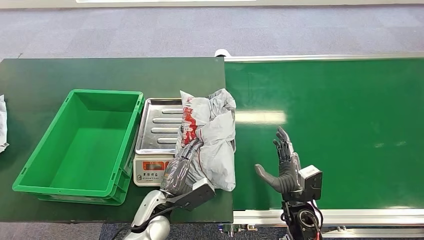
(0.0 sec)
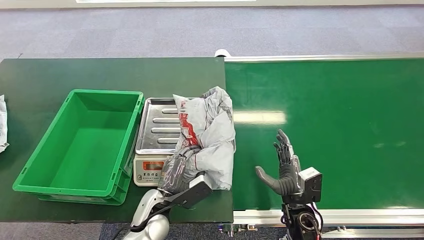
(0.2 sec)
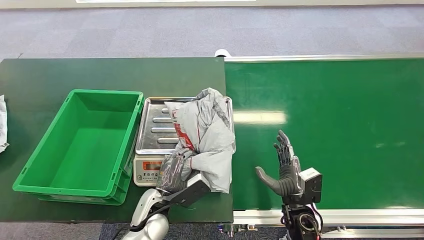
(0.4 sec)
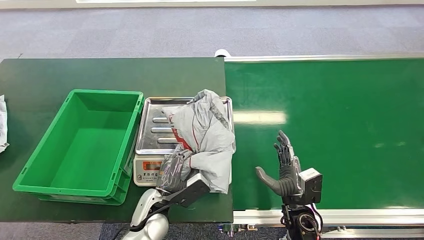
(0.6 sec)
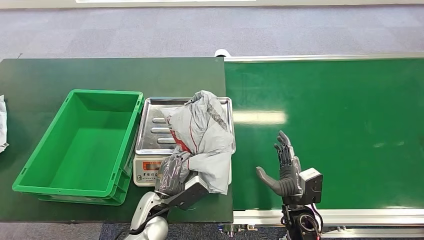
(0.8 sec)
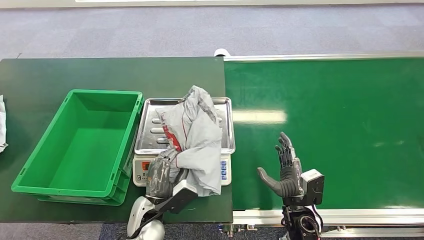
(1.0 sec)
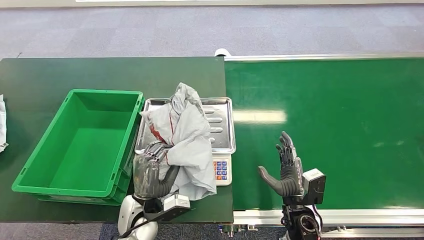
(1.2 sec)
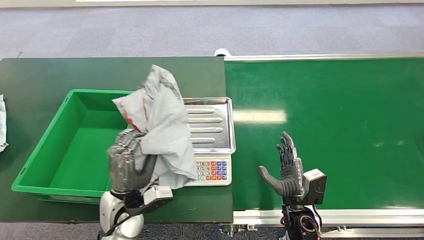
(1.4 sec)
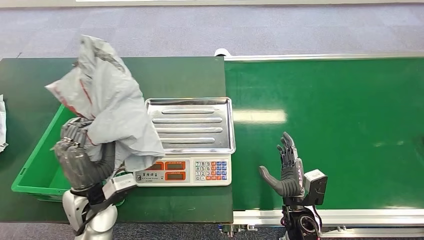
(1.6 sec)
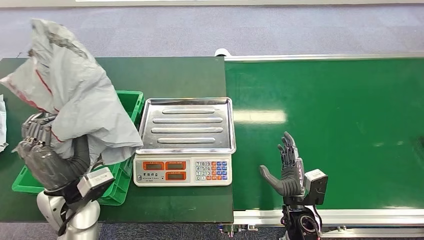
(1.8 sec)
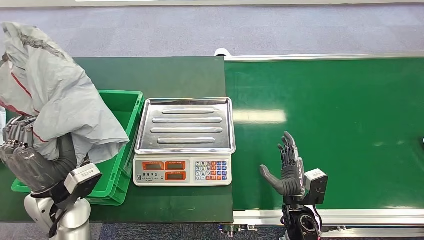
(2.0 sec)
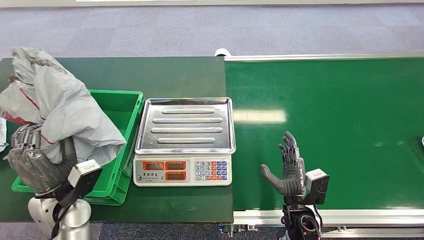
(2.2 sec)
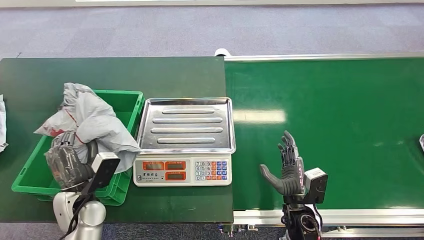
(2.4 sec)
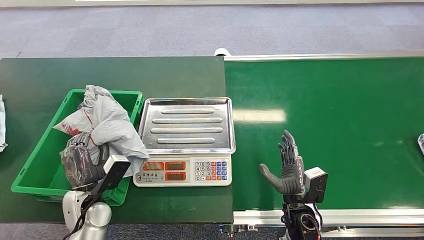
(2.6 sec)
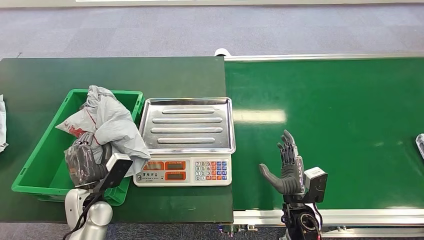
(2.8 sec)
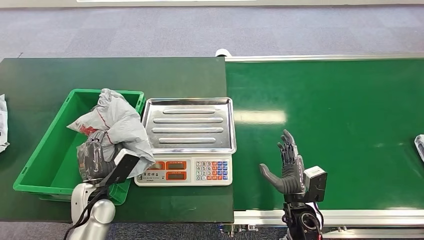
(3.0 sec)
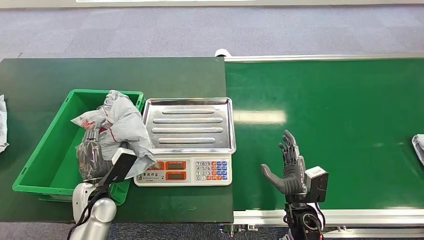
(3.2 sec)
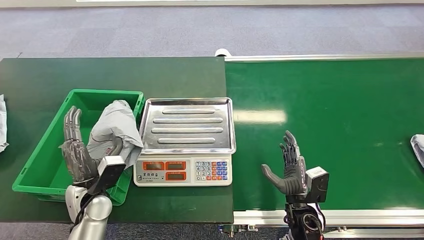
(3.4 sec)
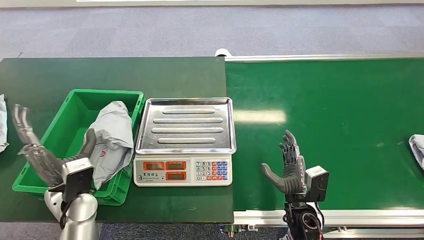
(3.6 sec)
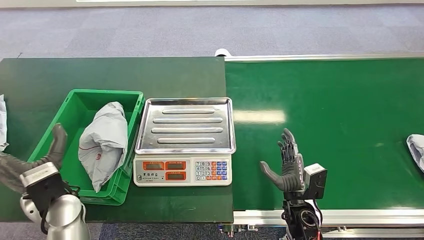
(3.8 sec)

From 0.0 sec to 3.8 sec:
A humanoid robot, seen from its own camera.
Step, from 0.8 sec to 1.6 sec: Pick up the package from the inbound machine.
Step, from 2.2 sec to 3.8 sec: Place the package into the parcel locker.
From 1.2 sec to 2.6 sec: The left hand is displaced to the left by about 15 cm.
From 2.6 sec to 3.8 sec: The left hand shifts roughly 10 cm upward.
